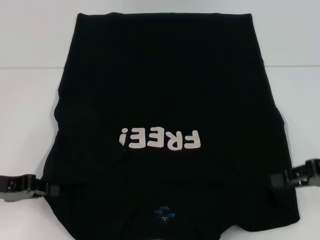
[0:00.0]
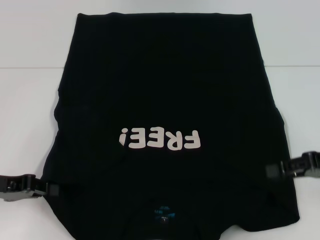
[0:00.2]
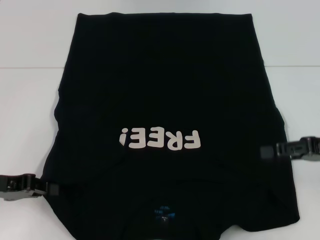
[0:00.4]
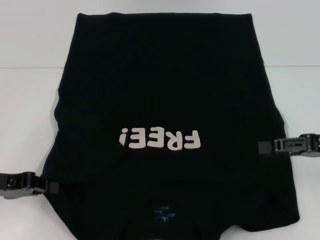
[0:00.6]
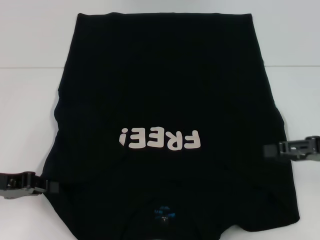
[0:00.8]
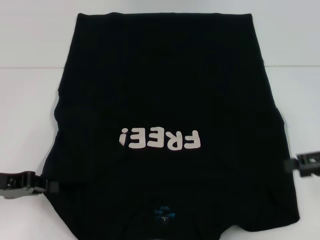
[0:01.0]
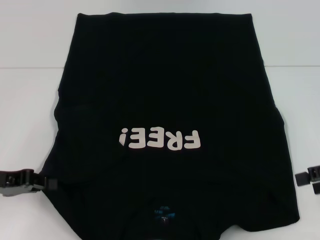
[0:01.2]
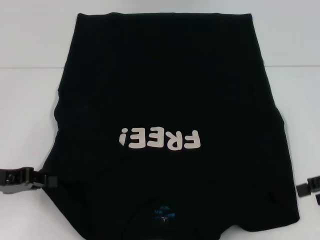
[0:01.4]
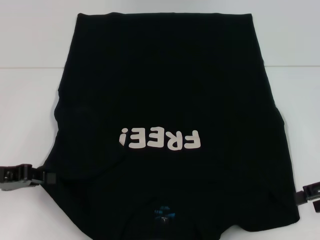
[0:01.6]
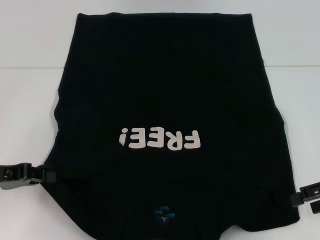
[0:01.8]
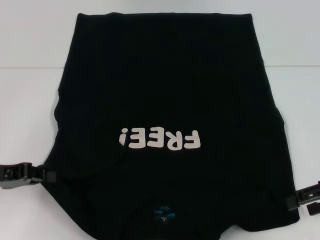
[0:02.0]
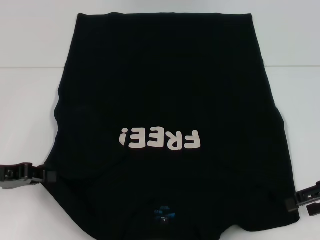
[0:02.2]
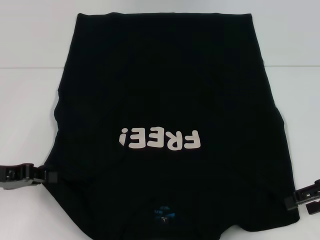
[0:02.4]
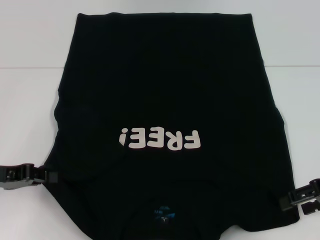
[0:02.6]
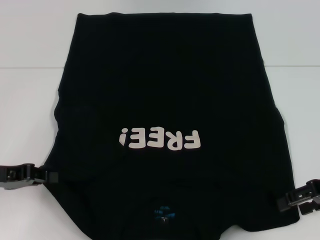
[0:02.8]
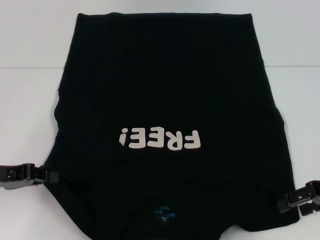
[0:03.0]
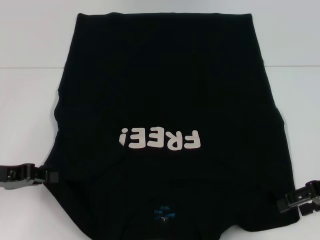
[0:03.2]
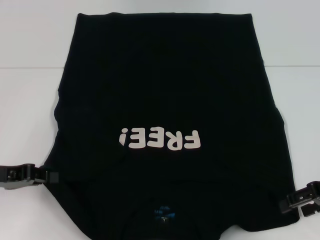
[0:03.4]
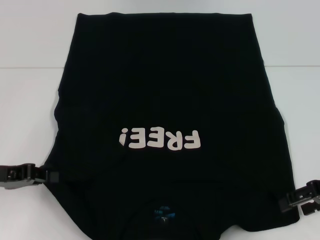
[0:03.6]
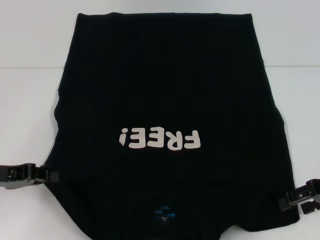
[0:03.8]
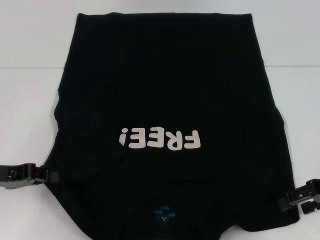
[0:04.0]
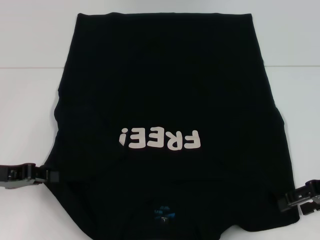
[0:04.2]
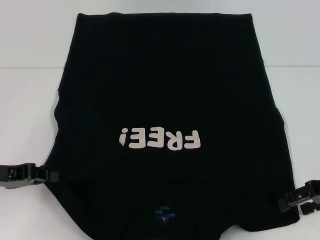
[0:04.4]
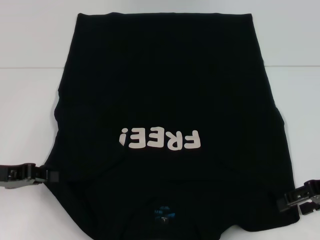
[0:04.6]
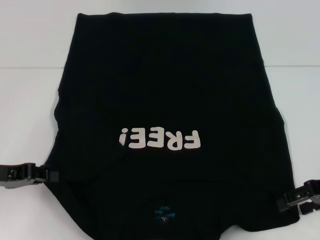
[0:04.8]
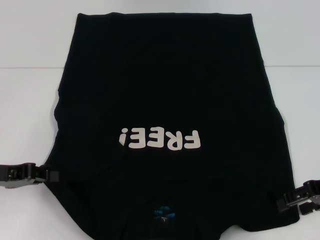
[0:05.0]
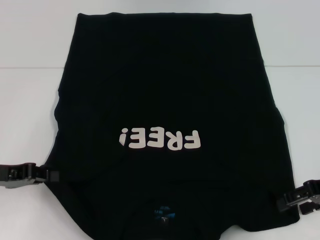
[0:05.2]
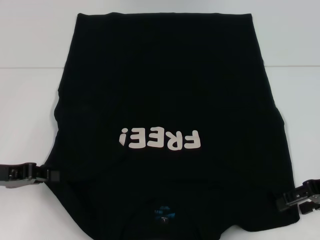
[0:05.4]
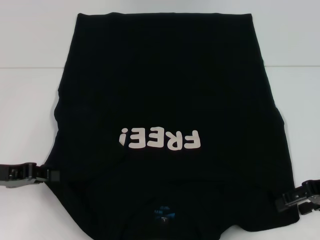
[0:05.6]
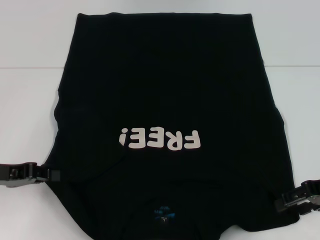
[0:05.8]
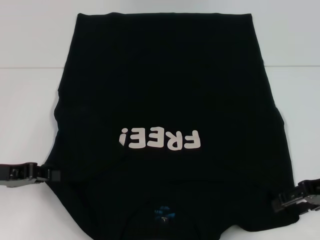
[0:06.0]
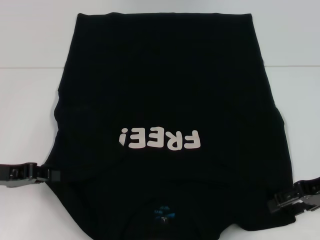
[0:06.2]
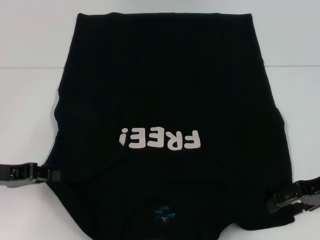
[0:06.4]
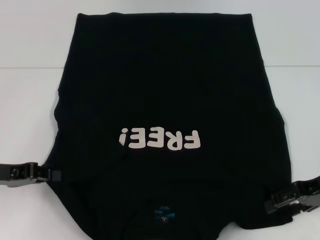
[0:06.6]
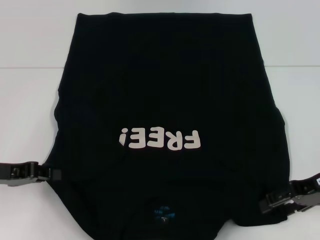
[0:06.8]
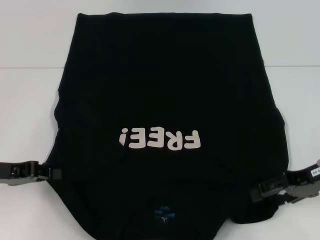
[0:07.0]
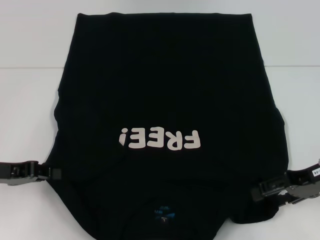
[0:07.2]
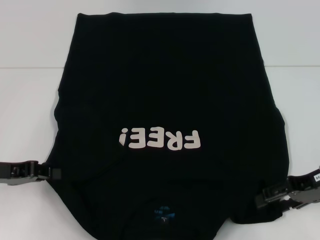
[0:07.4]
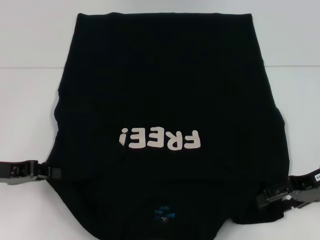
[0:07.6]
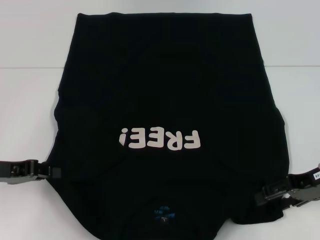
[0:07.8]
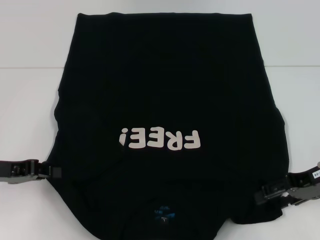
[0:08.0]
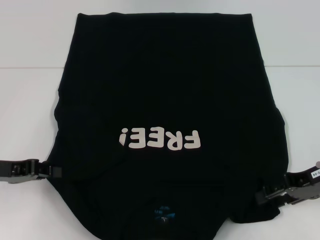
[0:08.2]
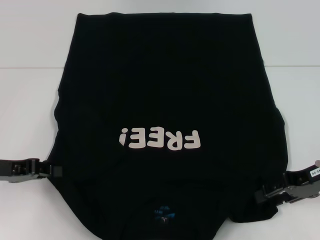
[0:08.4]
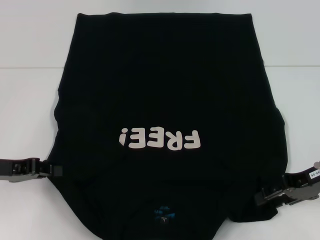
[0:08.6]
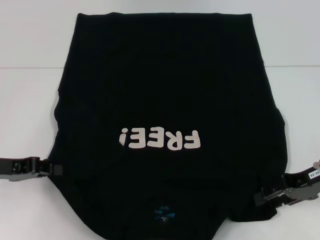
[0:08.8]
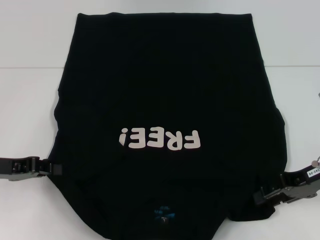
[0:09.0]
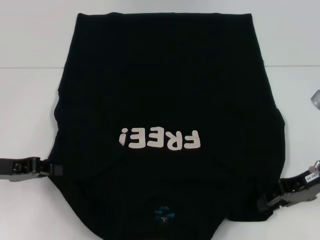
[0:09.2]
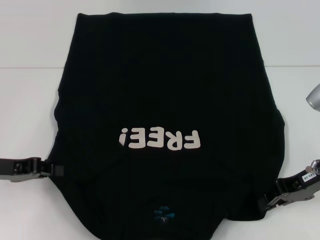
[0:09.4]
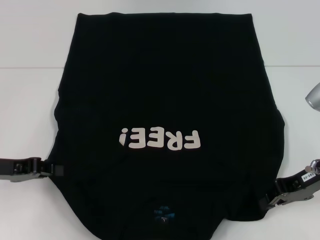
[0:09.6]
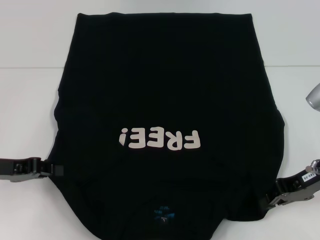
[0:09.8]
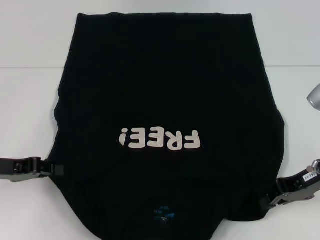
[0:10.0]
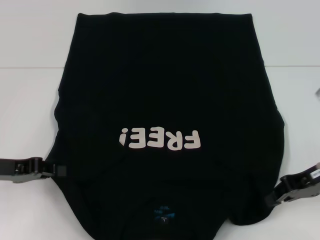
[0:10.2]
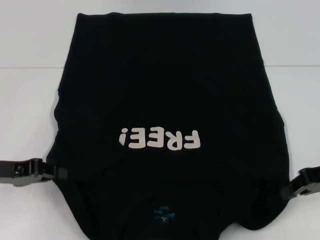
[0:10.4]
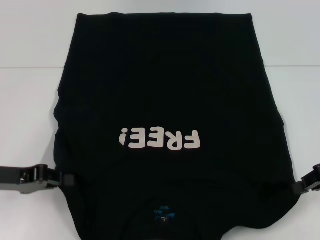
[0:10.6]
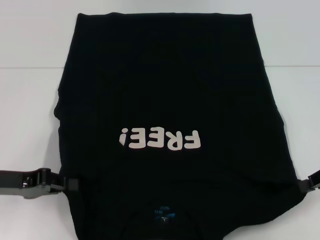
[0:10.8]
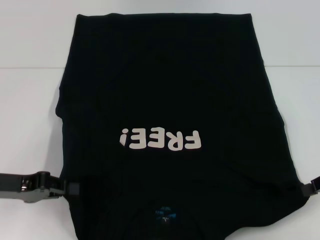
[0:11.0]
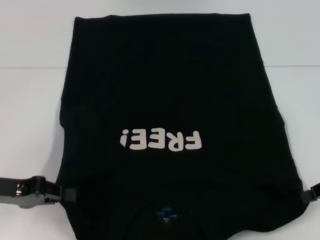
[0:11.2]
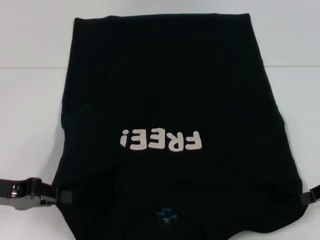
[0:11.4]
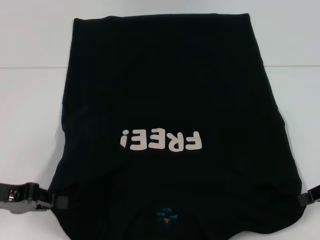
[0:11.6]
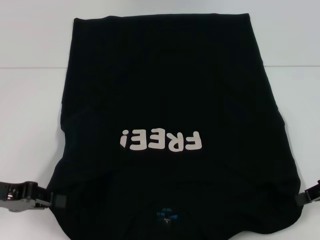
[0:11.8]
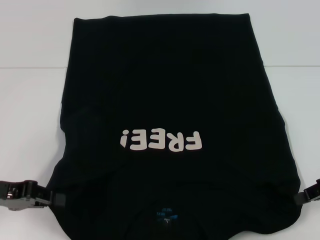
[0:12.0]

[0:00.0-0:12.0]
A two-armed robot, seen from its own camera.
Step, 0:00.0 to 0:12.0: Grab the bottom right corner with your right hand.
0:00.0 to 0:01.6: The right gripper opens its fingers.
0:01.6 to 0:03.0: The grippers make only small movements.
0:03.0 to 0:06.0: Neither gripper changes place.
0:06.0 to 0:07.6: The grippers move only a little.
0:07.6 to 0:09.0: The right gripper closes its fingers.
0:09.0 to 0:10.4: The right gripper closes up.
0:10.4 to 0:12.0: There are only small adjustments of the grippers.

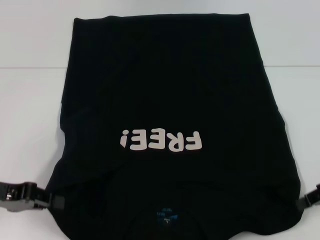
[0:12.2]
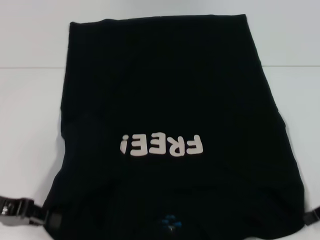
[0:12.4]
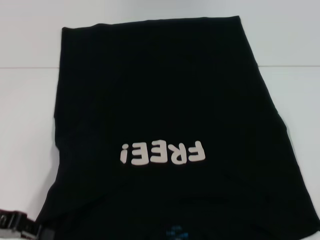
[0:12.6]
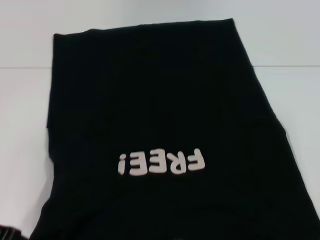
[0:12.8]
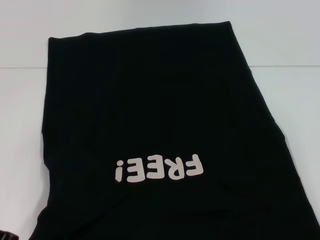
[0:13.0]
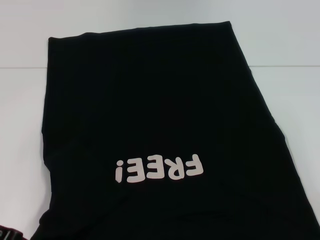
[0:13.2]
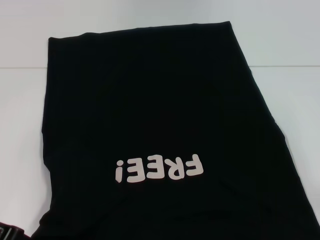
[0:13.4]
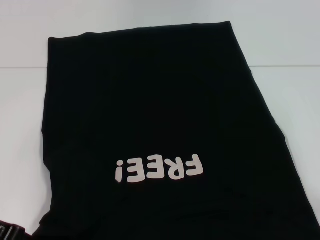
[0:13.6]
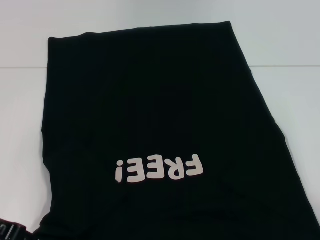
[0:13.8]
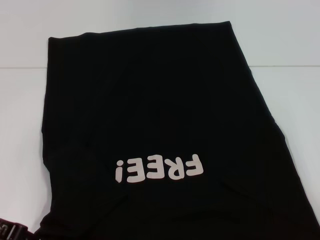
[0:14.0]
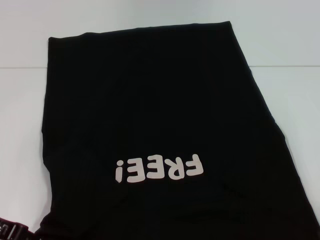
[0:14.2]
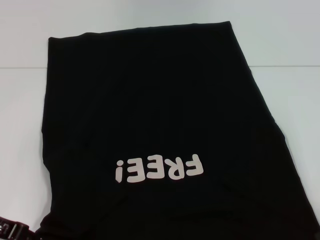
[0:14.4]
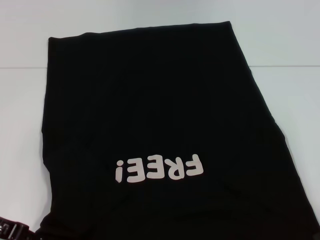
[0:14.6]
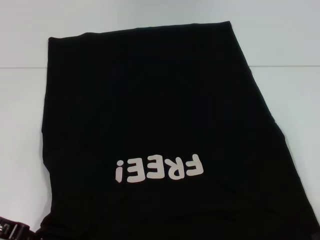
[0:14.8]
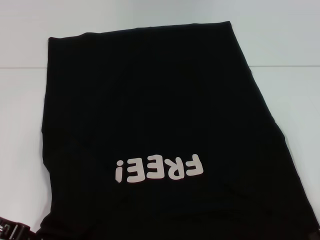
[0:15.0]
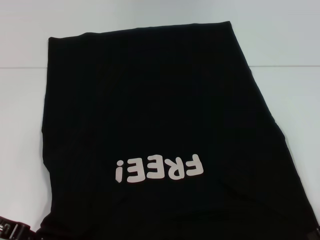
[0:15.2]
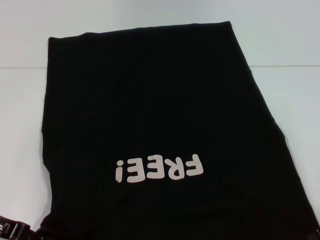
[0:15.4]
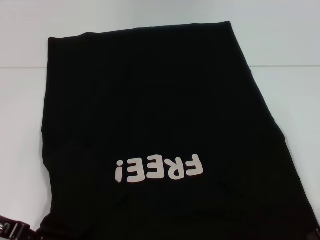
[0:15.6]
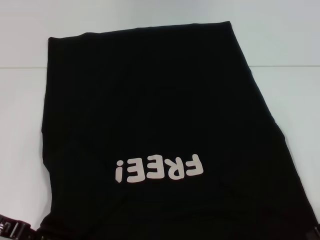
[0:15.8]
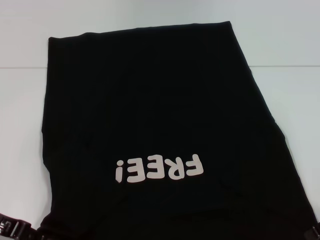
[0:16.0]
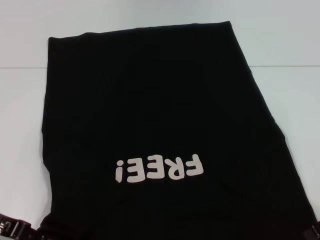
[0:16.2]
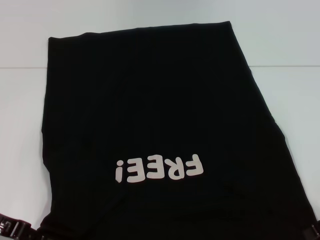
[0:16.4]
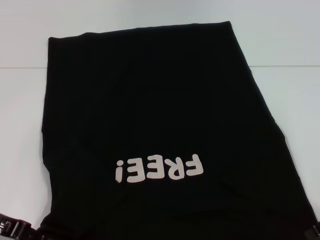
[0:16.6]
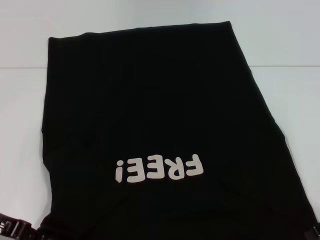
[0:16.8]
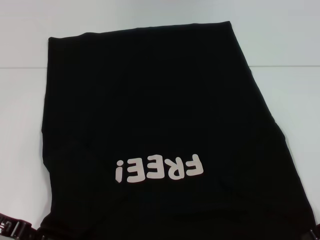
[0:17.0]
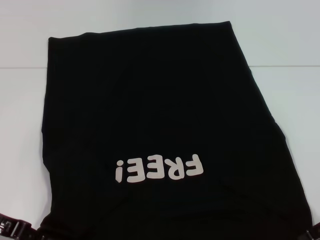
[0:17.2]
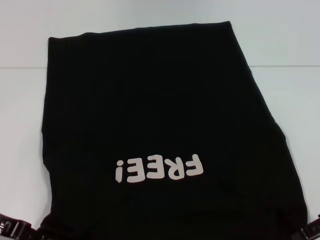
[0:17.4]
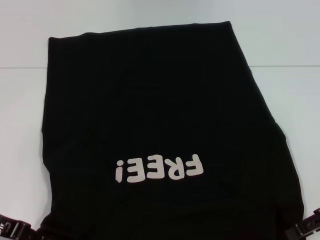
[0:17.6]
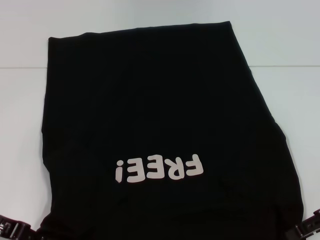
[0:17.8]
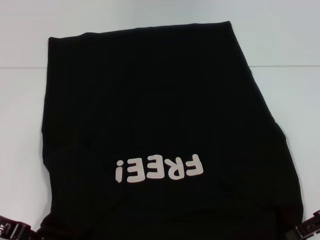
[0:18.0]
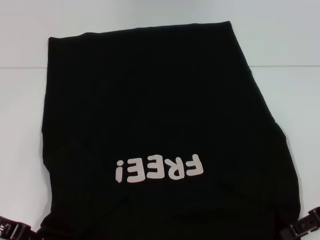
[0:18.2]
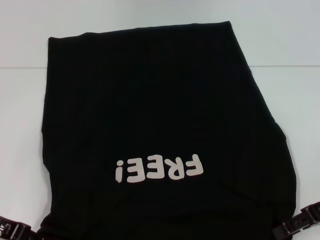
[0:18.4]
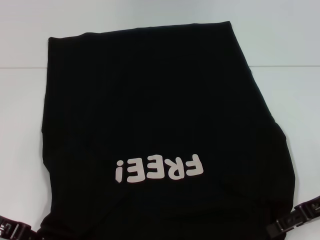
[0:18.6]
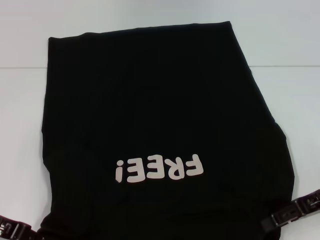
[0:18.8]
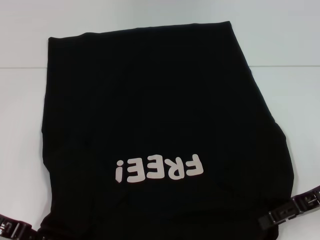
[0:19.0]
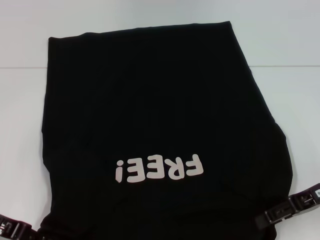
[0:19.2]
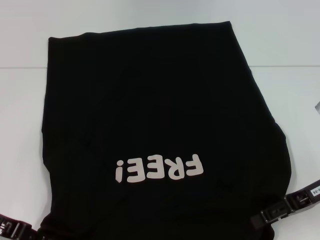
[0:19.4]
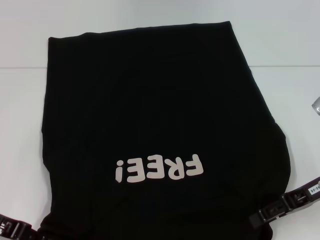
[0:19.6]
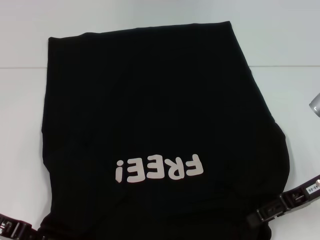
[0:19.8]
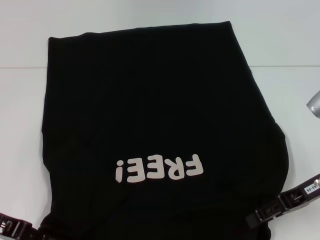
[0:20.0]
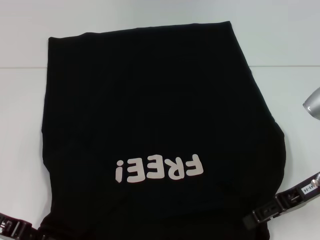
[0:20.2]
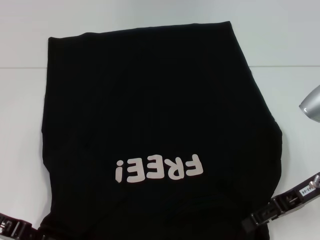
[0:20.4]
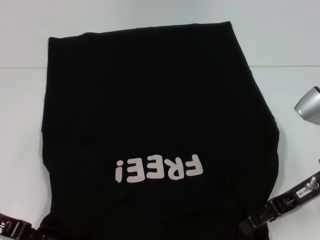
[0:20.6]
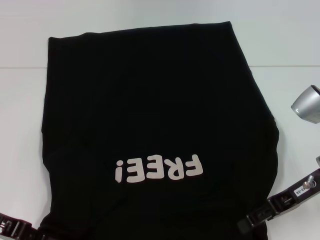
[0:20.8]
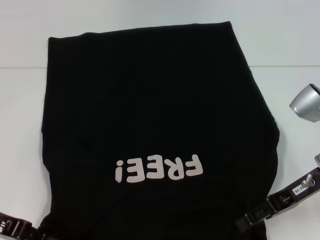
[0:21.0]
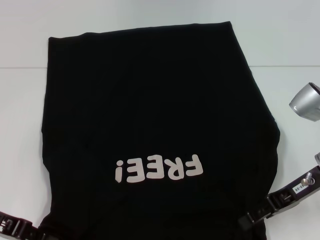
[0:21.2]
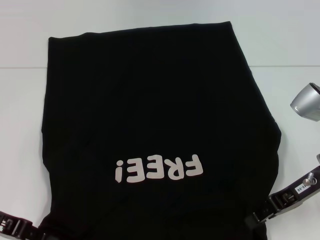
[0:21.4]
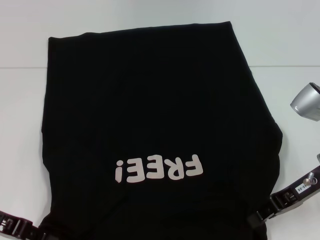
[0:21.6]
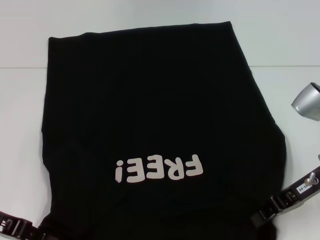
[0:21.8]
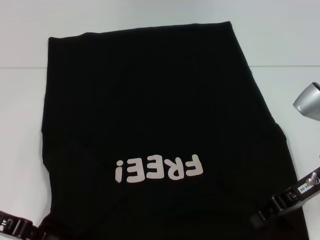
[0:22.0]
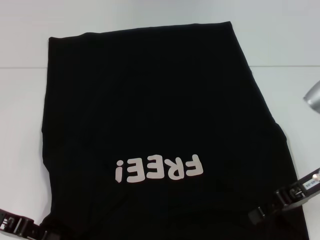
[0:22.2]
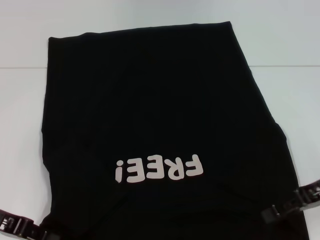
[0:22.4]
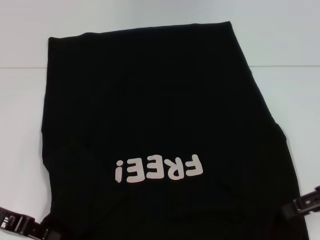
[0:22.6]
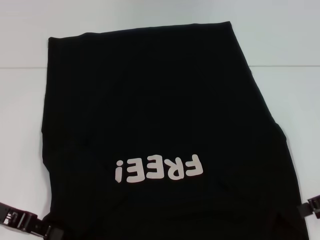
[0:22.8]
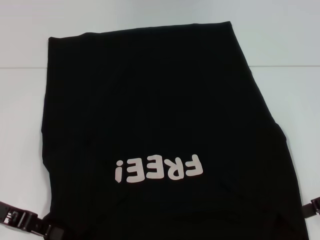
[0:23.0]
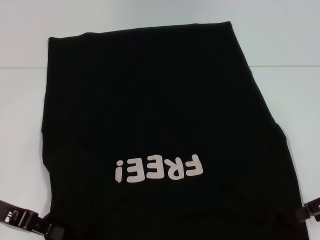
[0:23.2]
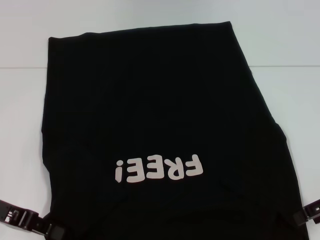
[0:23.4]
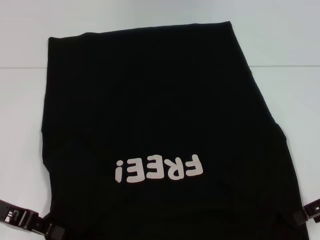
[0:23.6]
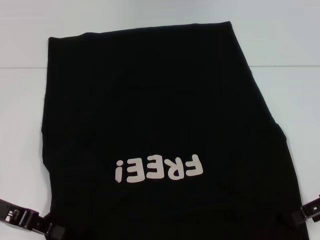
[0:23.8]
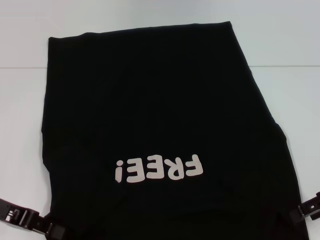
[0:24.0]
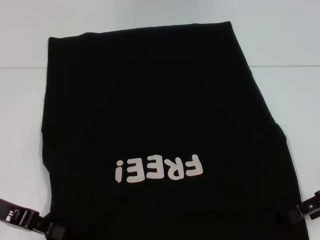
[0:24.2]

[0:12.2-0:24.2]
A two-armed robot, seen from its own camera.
0:12.2 to 0:13.8: The grippers make only small movements.
0:15.2 to 0:16.6: Neither gripper changes place.
0:16.6 to 0:18.2: There are only small adjustments of the grippers.
0:18.2 to 0:19.8: The grippers stay close to where they were, moving slightly.
0:19.8 to 0:21.2: The grippers move only a little.
0:21.2 to 0:22.6: The right gripper heads to the right, covering about 10 cm, and closes, then reopens.
0:22.6 to 0:24.2: The grippers stay close to where they were, moving slightly.
